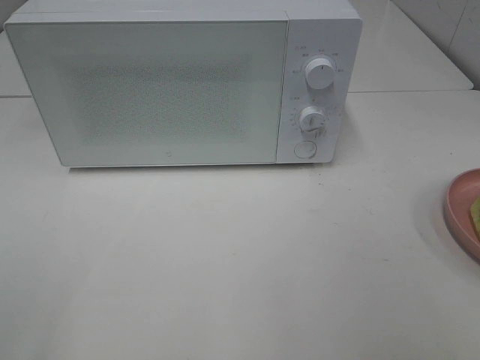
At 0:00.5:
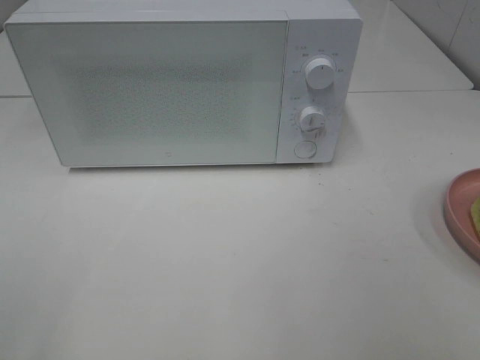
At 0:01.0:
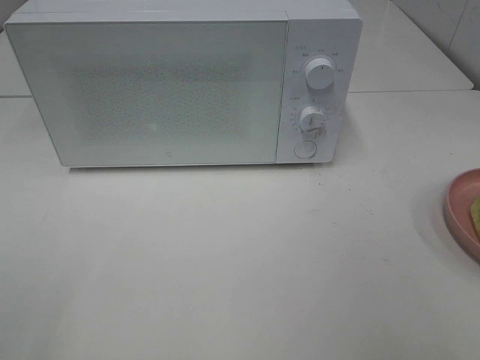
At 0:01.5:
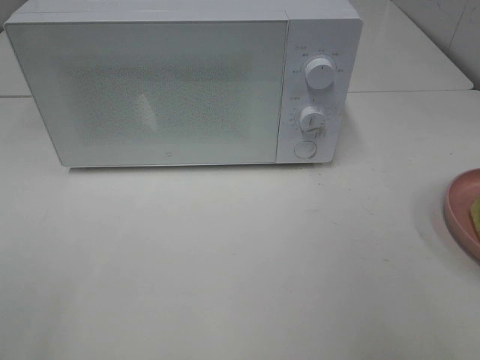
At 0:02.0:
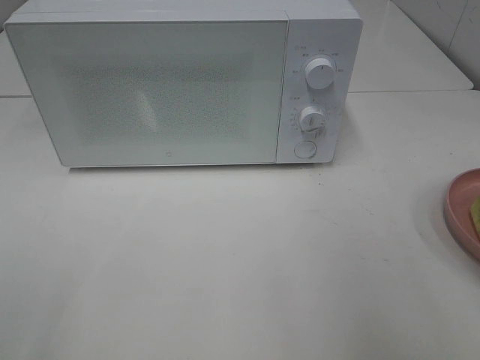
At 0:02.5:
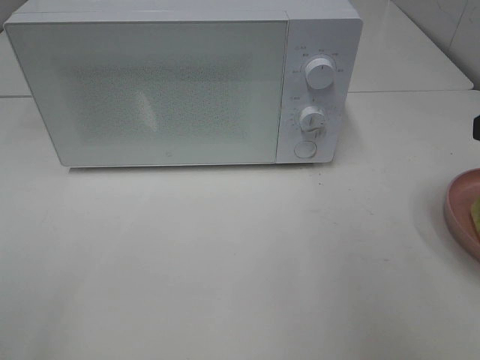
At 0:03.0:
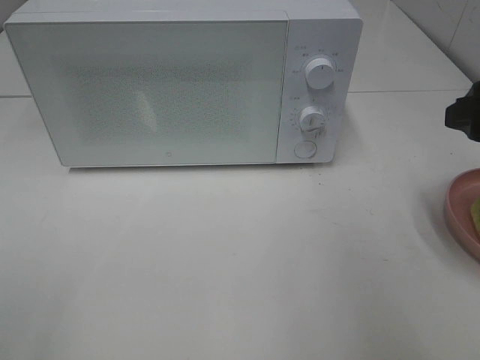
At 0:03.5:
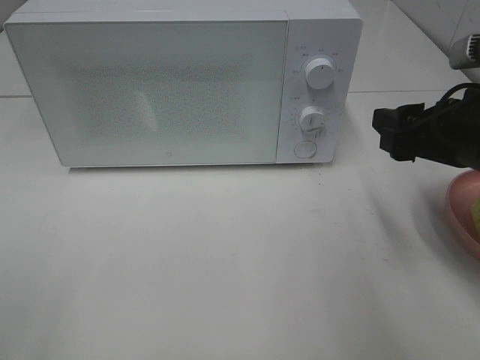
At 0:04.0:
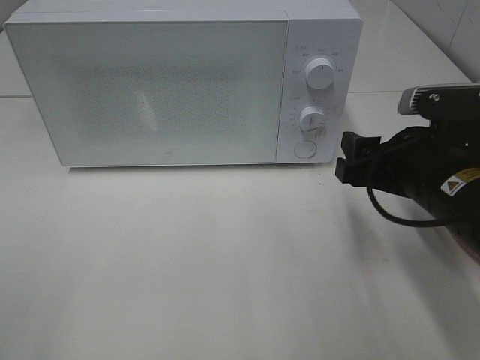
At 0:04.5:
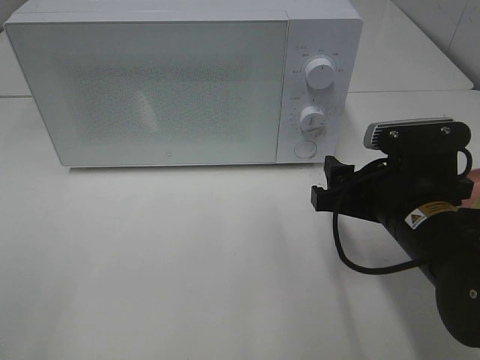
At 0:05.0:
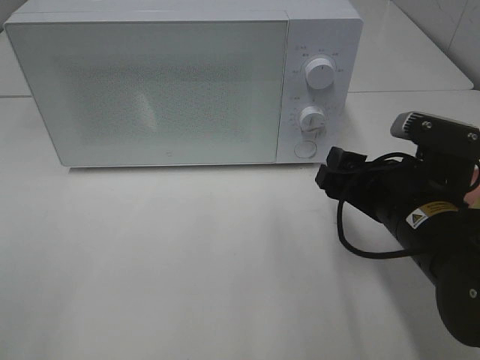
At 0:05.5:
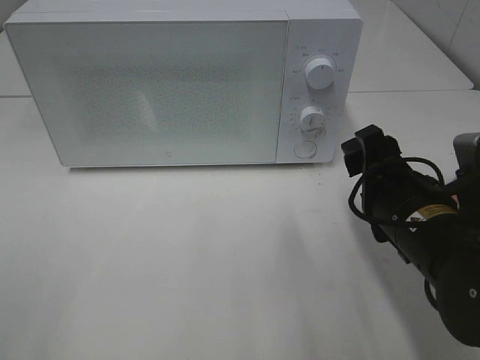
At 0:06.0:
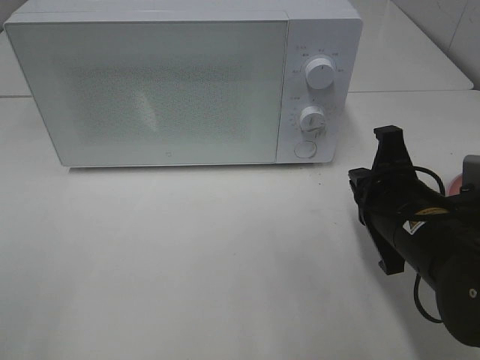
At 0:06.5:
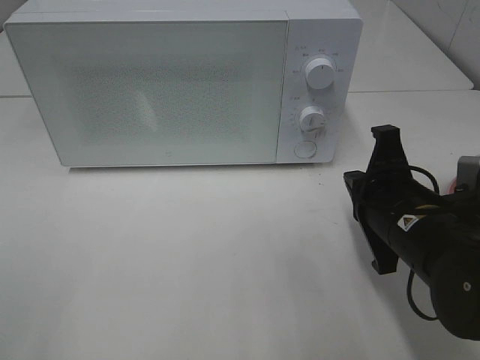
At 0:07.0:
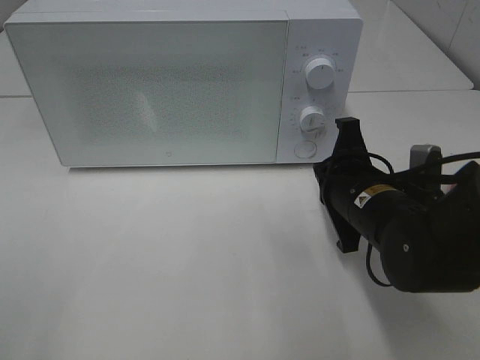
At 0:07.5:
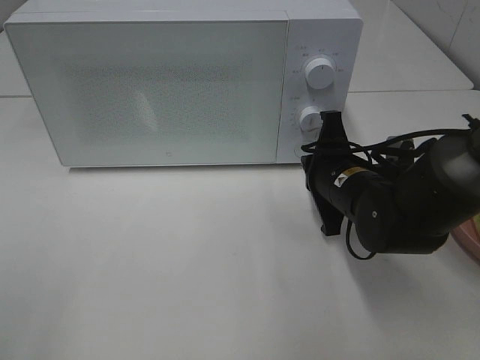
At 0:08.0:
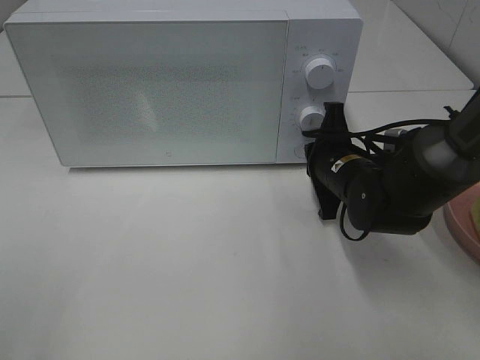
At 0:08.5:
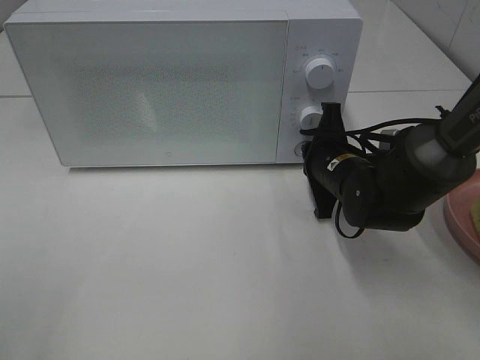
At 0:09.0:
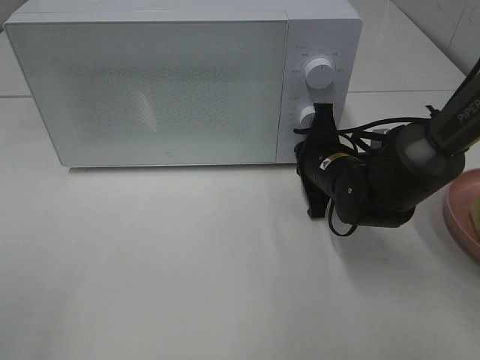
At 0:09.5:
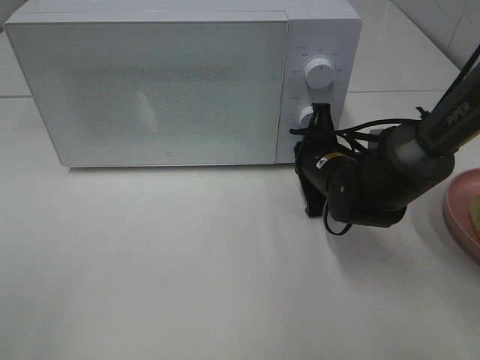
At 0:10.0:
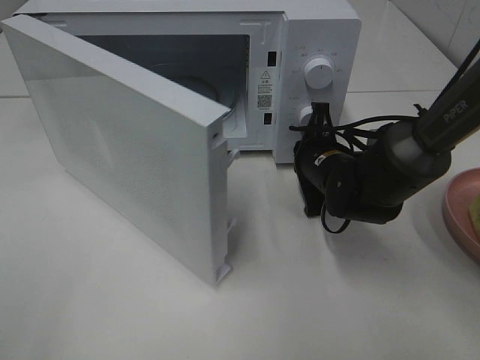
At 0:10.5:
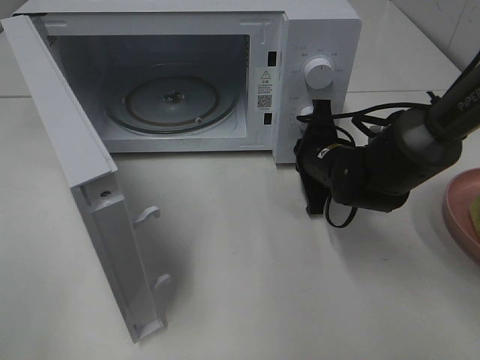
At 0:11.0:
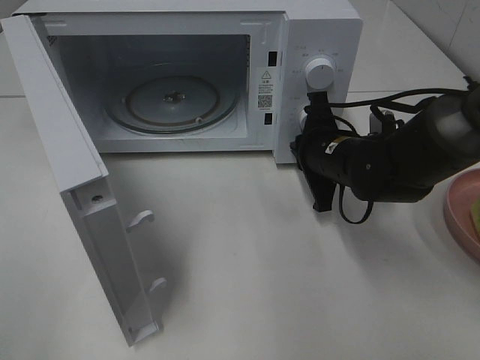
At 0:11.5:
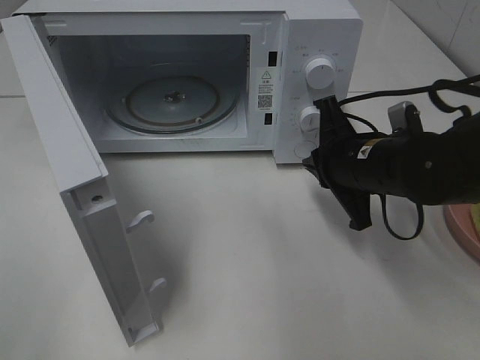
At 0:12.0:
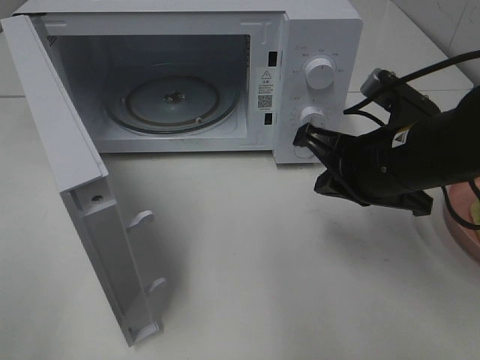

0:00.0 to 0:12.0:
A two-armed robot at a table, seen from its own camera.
Task of the whole recording: Heat Sandwich.
Step, 0:00.0 to 0:11.0: Right hand: press the switch.
0:02.0 to 0:04.0: The right gripper heads downward, forward and to the left, covering about 20 cm.
0:04.0 to 0:06.0: The right gripper closes its fingers.
0:06.0 to 0:08.0: The right gripper moves forward, approximately 10 cm.
0:10.0 to 0:12.0: The right gripper is displaced upward and backward by roughly 15 cm.

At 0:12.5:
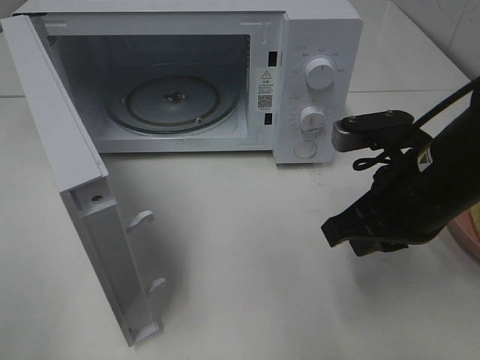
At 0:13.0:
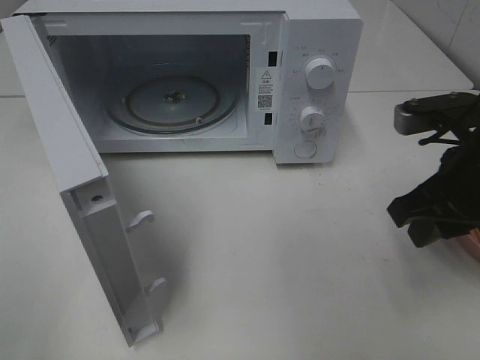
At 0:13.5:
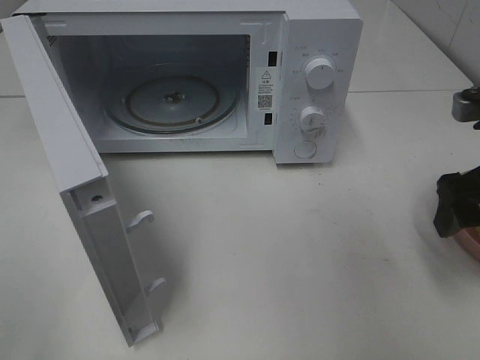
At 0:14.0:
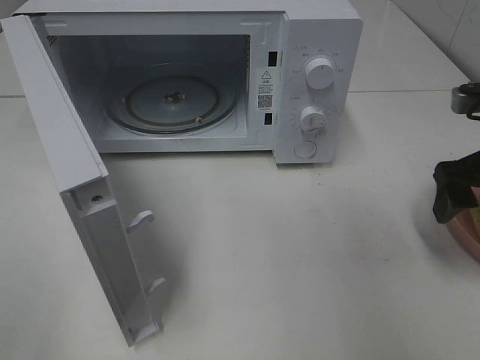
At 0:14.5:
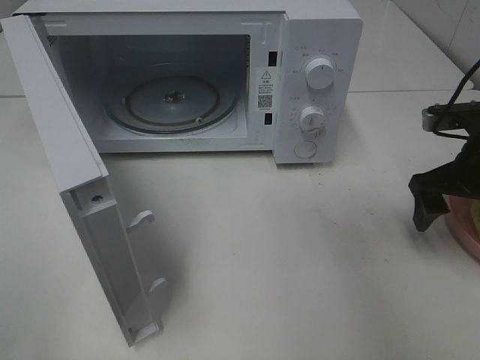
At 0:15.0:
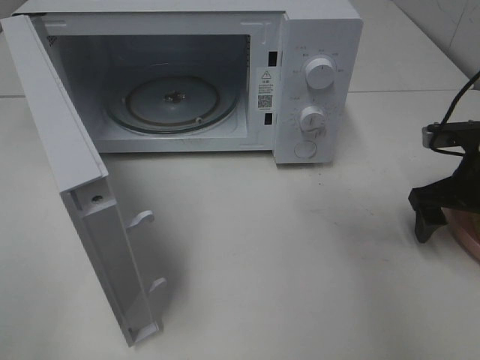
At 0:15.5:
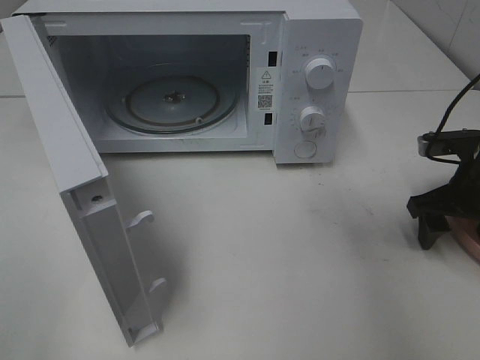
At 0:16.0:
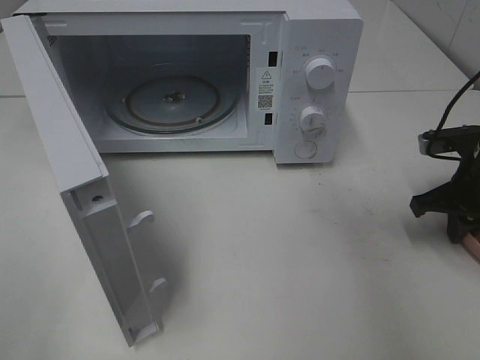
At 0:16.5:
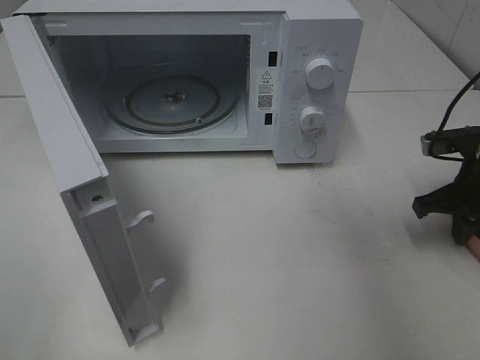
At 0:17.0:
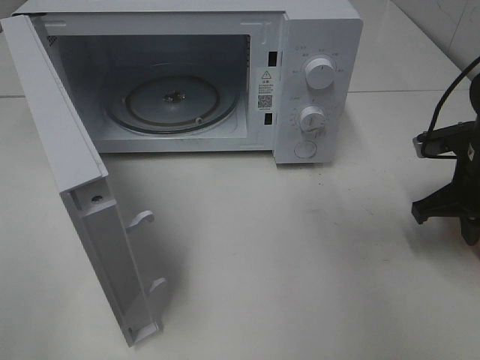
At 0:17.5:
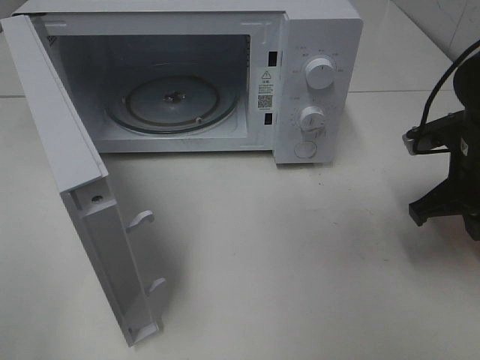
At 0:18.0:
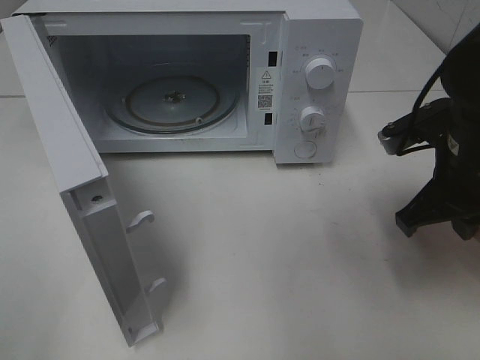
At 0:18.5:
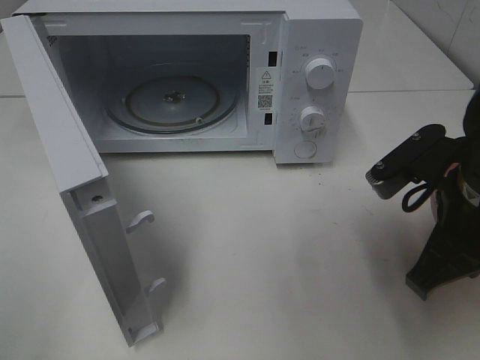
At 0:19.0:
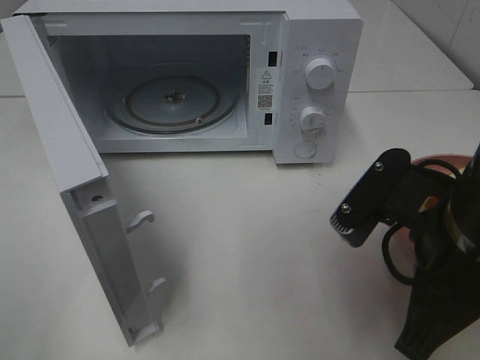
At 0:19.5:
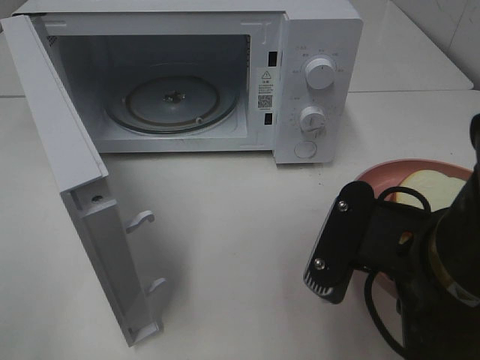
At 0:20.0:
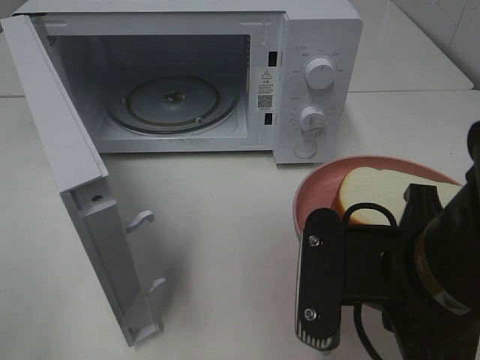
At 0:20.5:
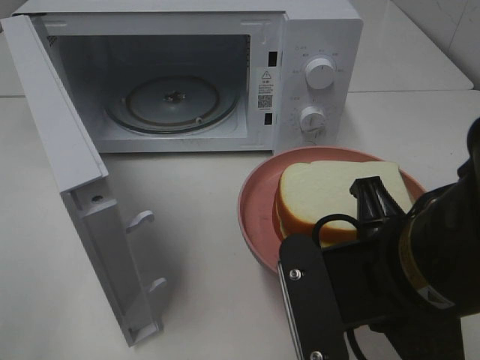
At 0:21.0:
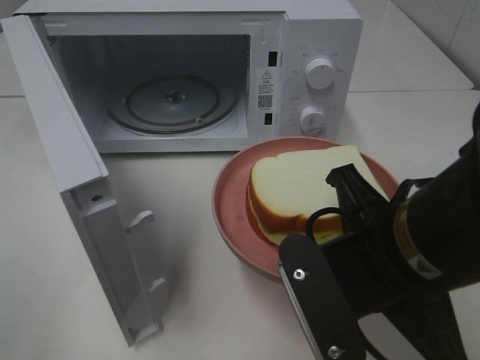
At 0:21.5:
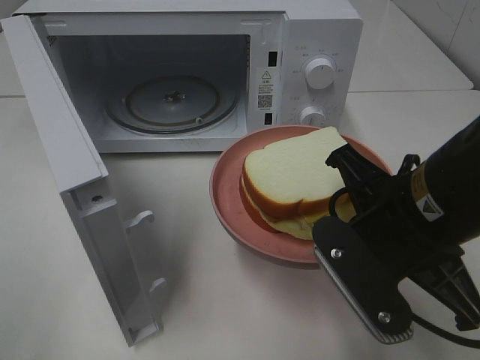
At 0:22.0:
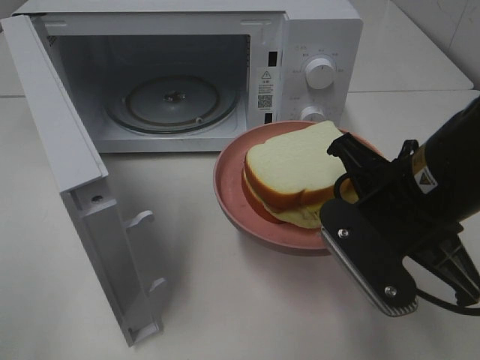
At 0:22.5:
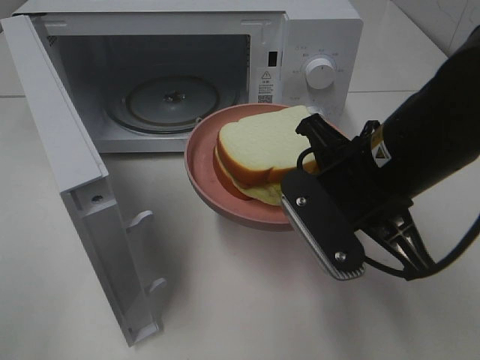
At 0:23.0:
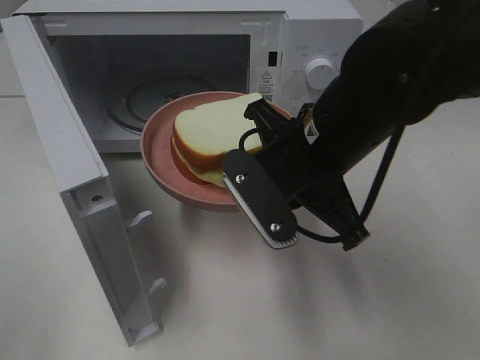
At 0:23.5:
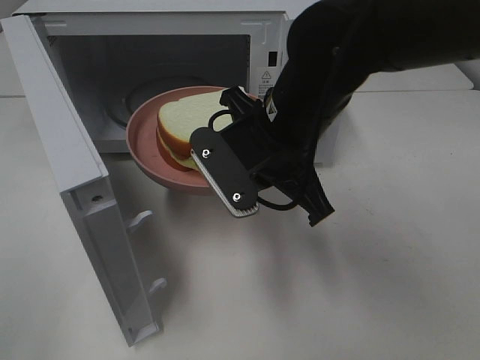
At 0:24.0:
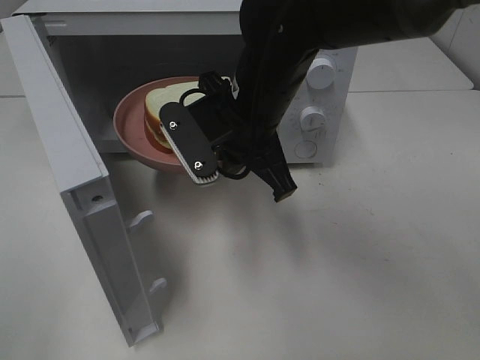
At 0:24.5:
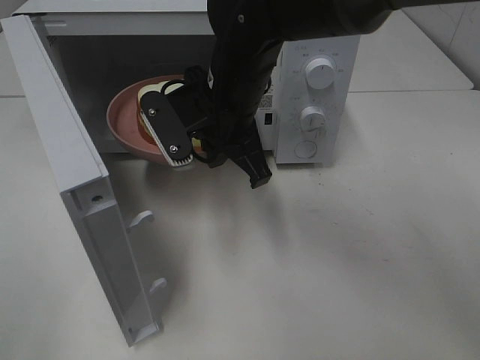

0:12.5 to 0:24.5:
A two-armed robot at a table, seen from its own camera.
Task of the whole recording: Heat Sandwich.
Step, 0:12.5 to 0:16.5: Right hand: grab the plate with the sandwich.
0:12.5 to 0:14.5: The right gripper shifts approximately 15 cm to the right and forward, and opens.
0:14.5 to 0:16.5: The right gripper closes up.
0:16.5 to 0:18.5: The right gripper travels backward, to the left and upward by about 20 cm.
0:18.5 to 0:20.5: The right gripper heads to the left and backward, covering about 10 cm.
0:20.5 to 0:22.5: The right gripper goes approximately 10 cm forward.
0:22.5 to 0:24.5: The right gripper shifts about 15 cm to the left and forward.

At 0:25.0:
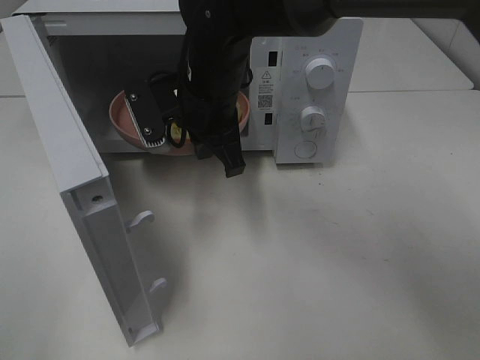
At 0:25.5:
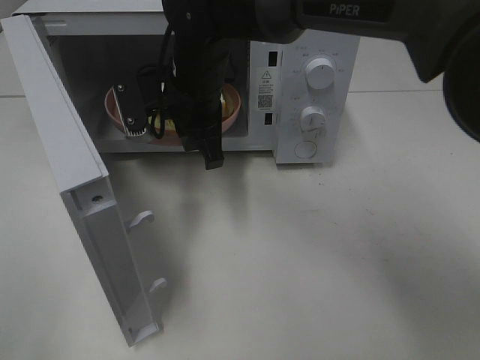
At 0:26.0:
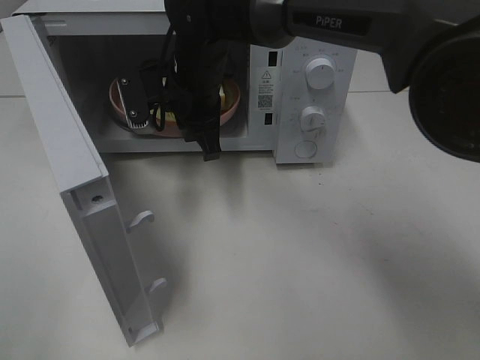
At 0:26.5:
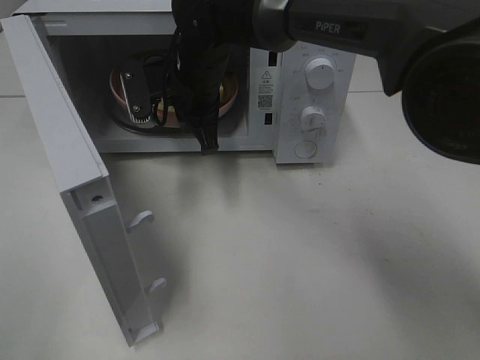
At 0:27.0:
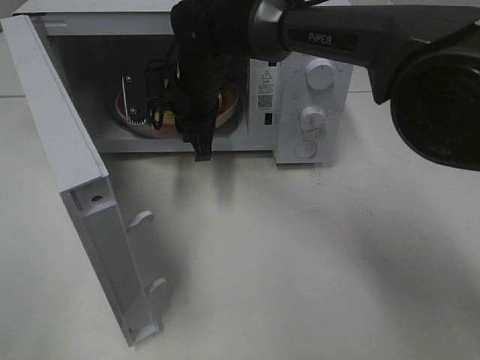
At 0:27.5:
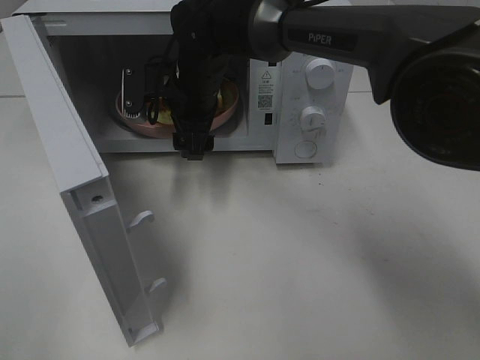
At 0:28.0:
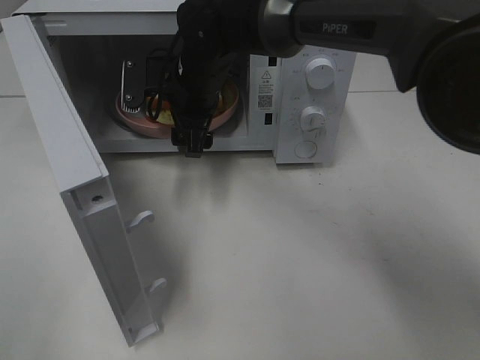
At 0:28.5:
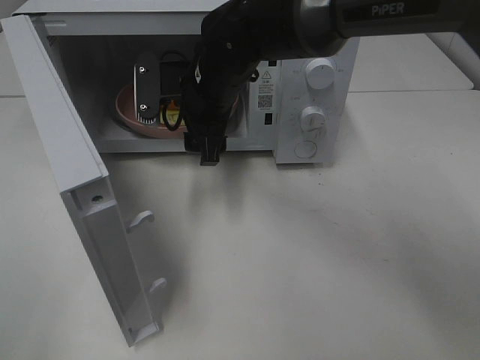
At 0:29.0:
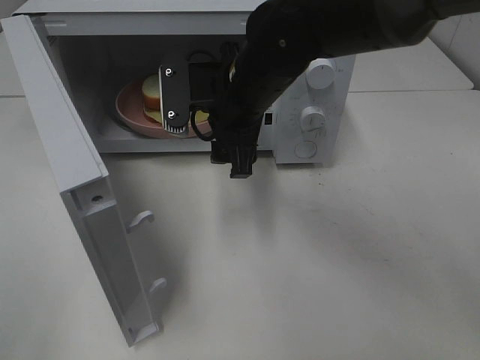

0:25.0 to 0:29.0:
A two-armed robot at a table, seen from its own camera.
Task of the whole recording: Heat Sandwich.
Step, 0:25.0 to 0:28.0: Right hand: place the plate in the microwave.
0:25.0 to 0:27.0: The right gripper travels forward by approximately 5 cm.
0:27.0 to 0:29.0: The right gripper travels backward and to the right by approximately 10 cm, and opens its fingers.
